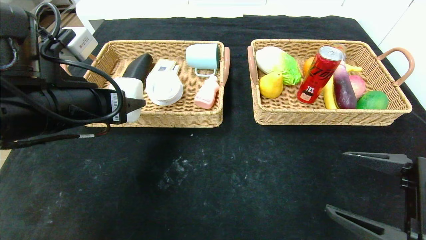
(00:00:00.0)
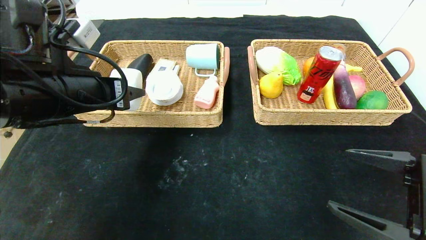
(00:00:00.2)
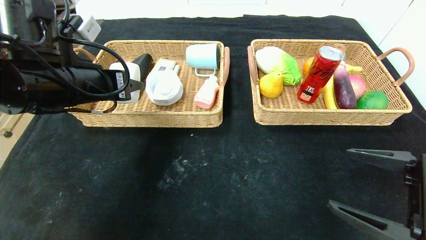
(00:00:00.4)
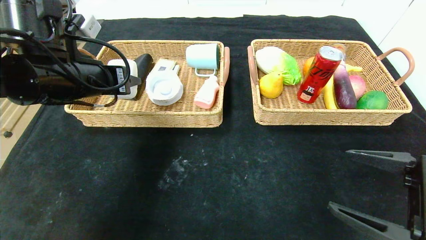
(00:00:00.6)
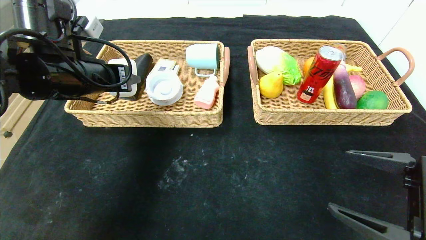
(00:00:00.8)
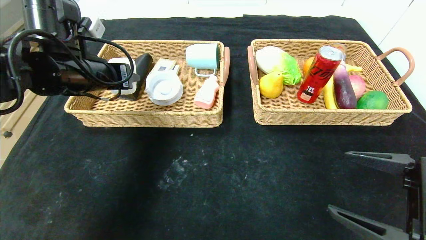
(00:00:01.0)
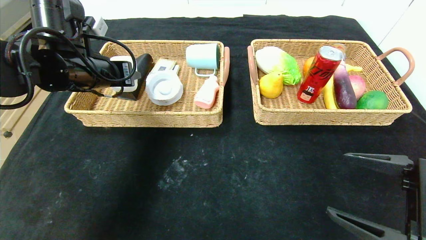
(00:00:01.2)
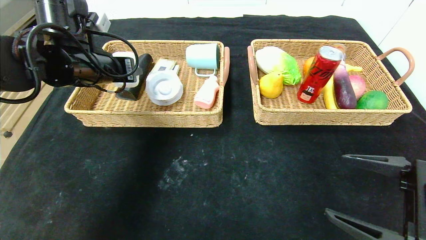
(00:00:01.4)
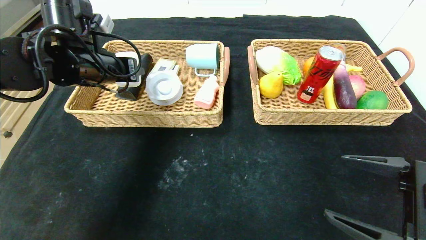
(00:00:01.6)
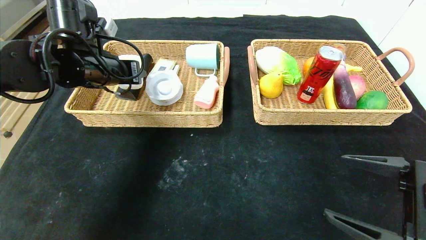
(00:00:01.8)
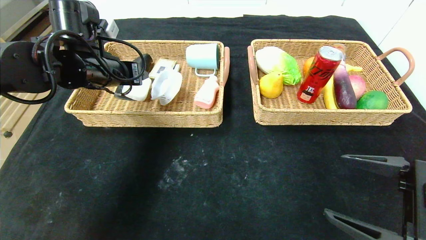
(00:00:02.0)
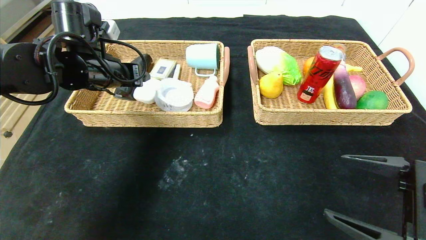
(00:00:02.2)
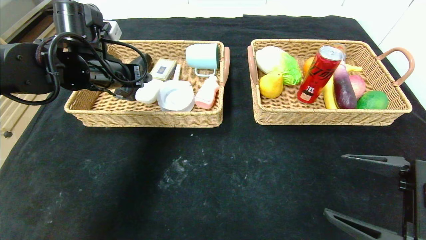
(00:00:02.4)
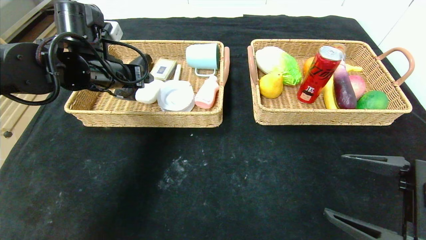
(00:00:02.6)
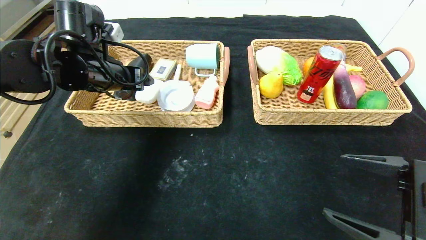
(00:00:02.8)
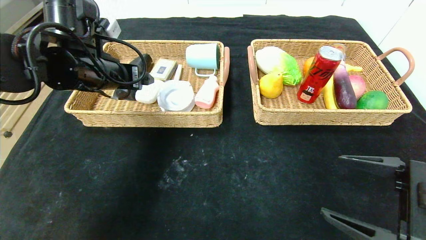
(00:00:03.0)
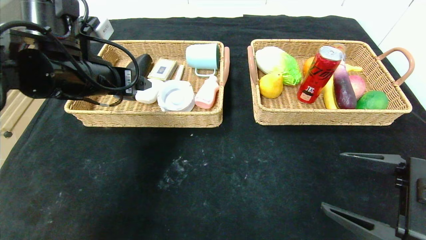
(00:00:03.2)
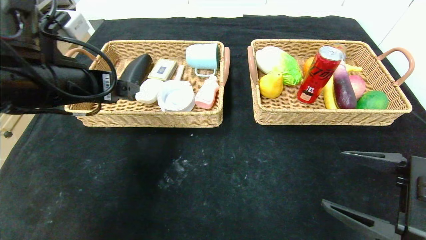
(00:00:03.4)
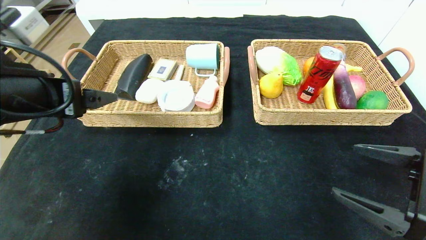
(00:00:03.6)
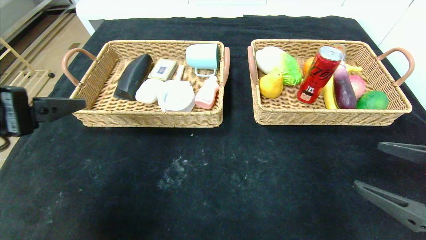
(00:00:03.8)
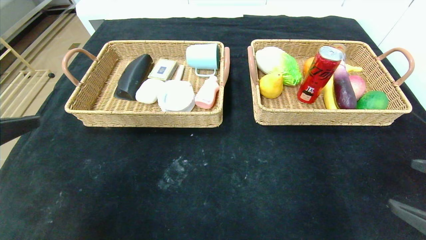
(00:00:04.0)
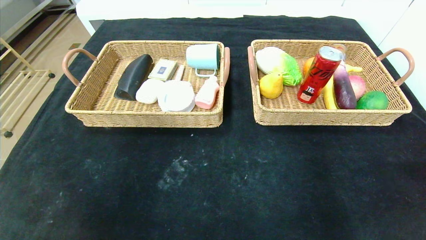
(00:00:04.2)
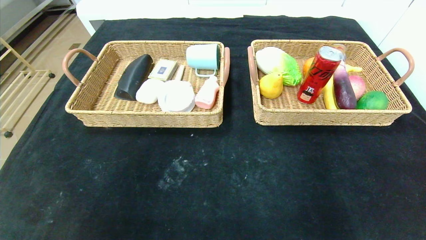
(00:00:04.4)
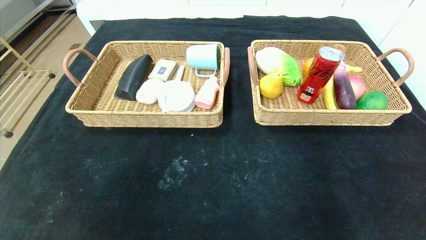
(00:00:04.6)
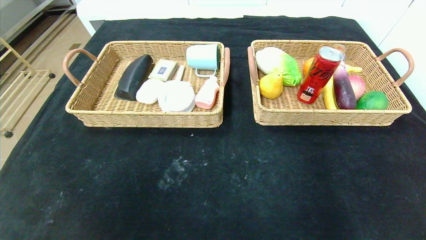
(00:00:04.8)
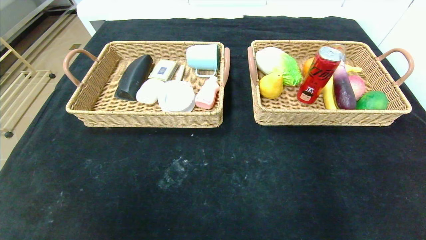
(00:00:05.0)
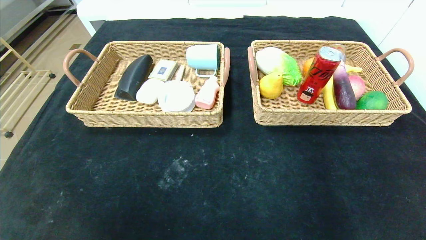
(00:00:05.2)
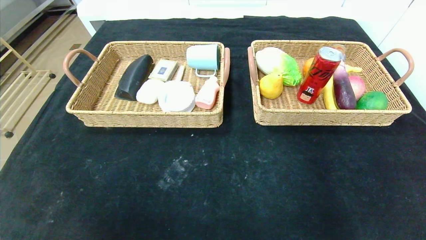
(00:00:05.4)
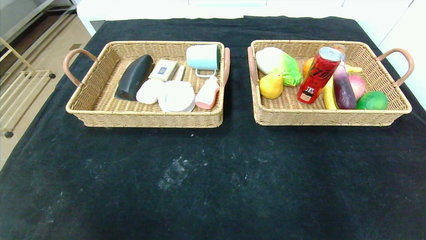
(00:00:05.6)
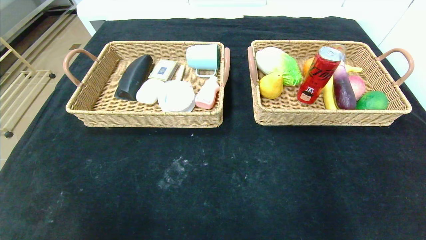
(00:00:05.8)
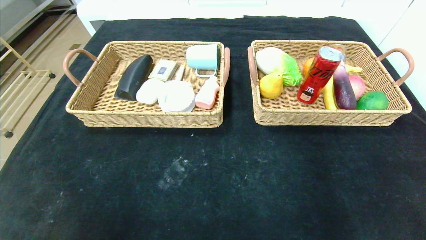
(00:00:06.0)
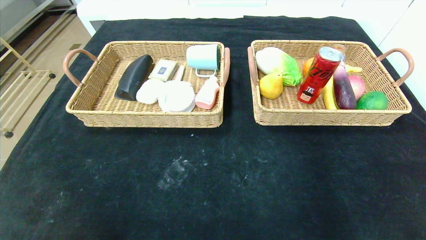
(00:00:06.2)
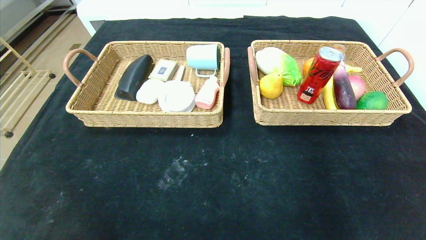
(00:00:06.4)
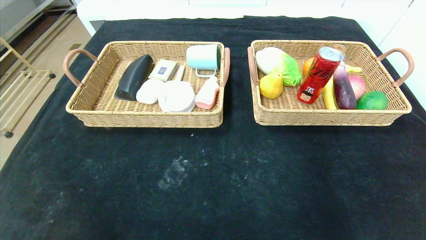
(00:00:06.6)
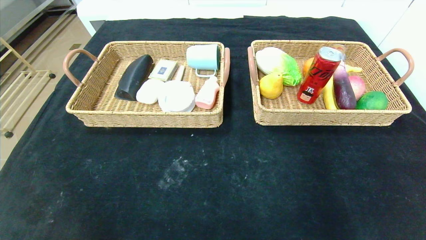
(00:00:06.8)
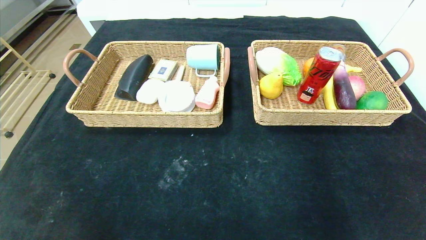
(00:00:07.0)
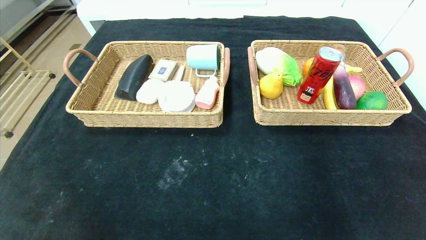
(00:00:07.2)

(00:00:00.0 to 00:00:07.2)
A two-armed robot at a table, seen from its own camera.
Step, 00:00:00.0 - 00:00:02.0: Grasp the white eraser and put it in the left basket.
00:00:00.0 - 00:00:01.4: The left gripper shifts some 10 cm forward.
00:00:01.4 - 00:00:02.8: The left gripper opens its fingers.
00:00:02.8 - 00:00:04.4: The left gripper travels backward by roughly 35 cm. The right gripper heads backward and to the right, covering about 20 cm.
00:00:04.4 - 00:00:05.8: The left gripper goes about 15 cm downward.
